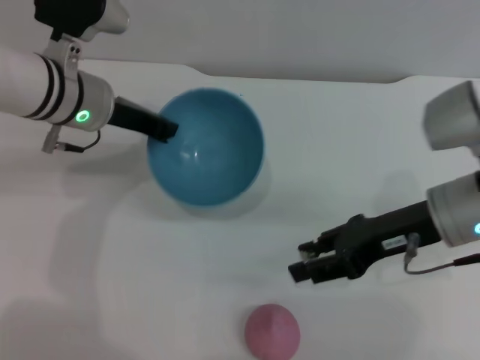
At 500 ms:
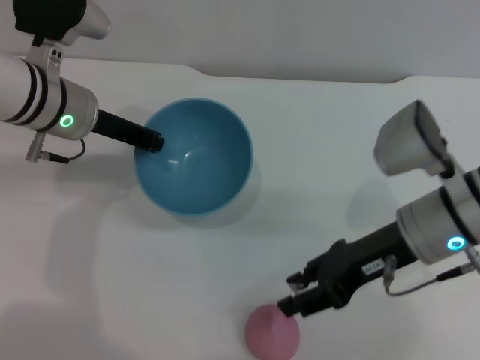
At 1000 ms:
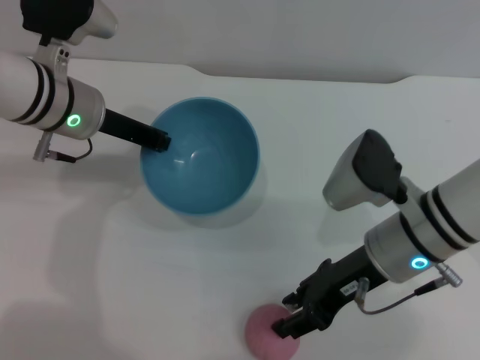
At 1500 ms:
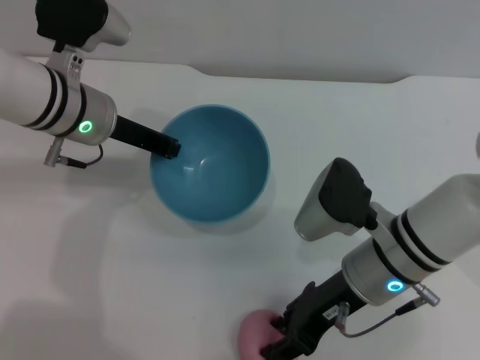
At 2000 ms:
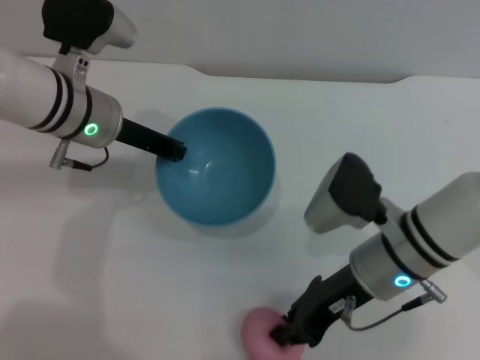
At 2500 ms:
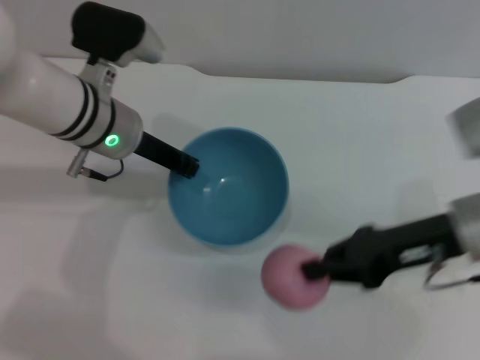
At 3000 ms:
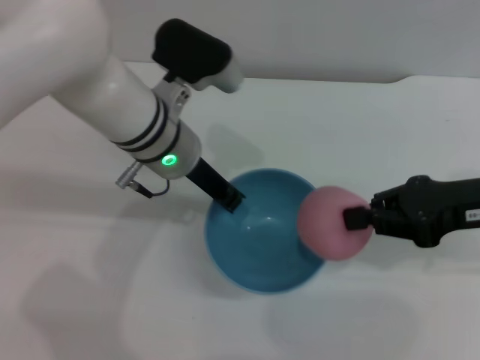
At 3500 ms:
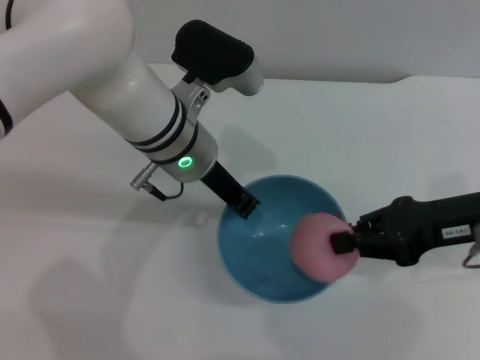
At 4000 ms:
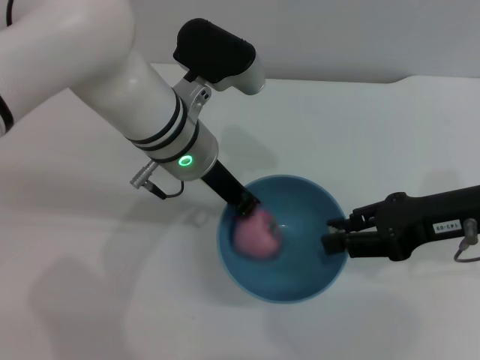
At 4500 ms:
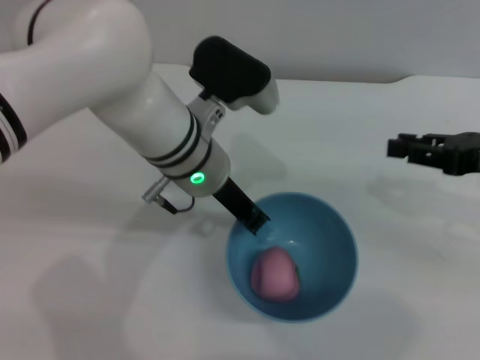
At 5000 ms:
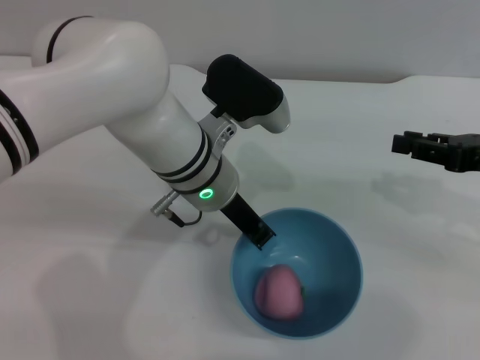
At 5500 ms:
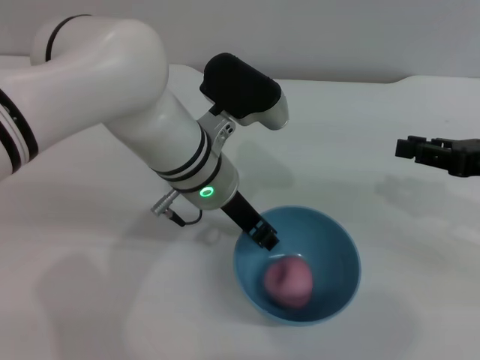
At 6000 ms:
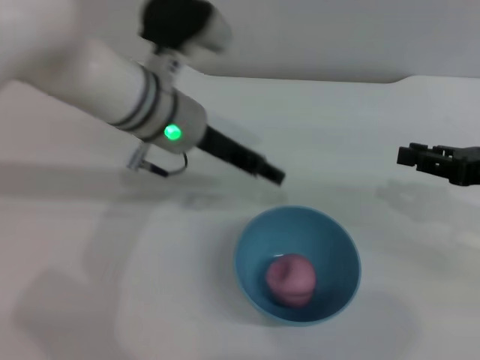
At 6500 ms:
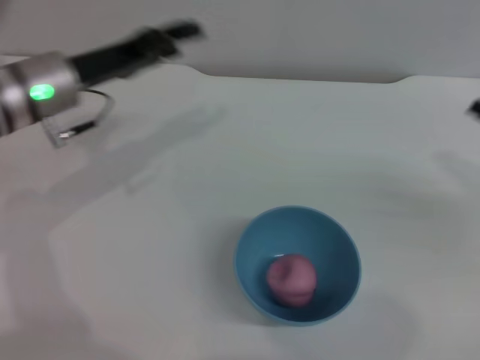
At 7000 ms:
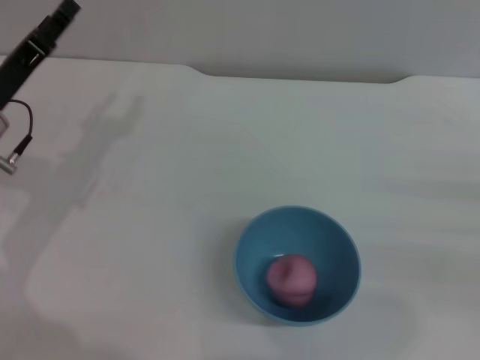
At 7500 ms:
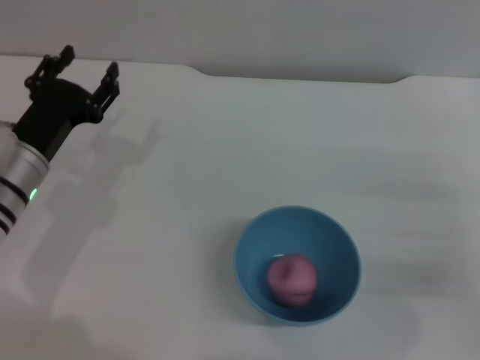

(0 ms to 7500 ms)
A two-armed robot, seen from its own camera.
Task of the whole recording: put the peach into the blue bowl and pour it out repeatedly.
Step, 0 ms - 2500 ms: Pick up the peach with the right gripper.
Step, 3000 ms - 4500 ms: Place the peach into the bowl.
Step, 5000 ms - 6000 ms: Place the bowl on the table.
0 ms - 2000 ms: The right gripper heads to the left, covering about 5 cm.
2000 ms - 4000 ms: The right gripper goes approximately 15 cm to the right and upward, and closes, then opens again. Meanwhile the left gripper travels to the right by roughly 10 cm.
4000 ms - 5500 ms: The right gripper travels to the right by roughly 5 cm.
5500 ms - 7500 ms: The left gripper moves to the left, approximately 20 cm, and opens its fingers, while the right gripper heads downward and backward, covering about 10 cm.

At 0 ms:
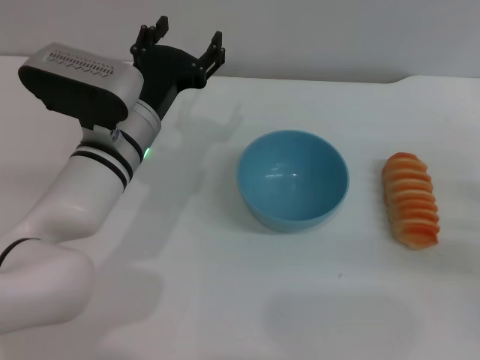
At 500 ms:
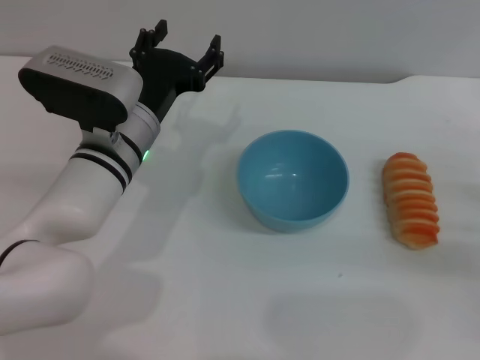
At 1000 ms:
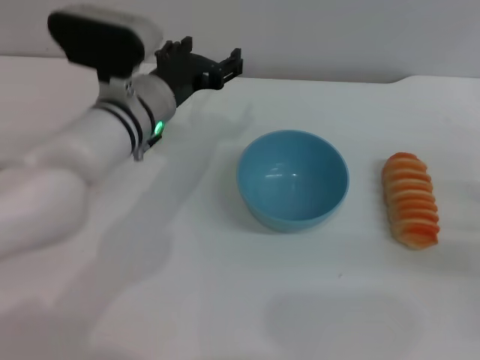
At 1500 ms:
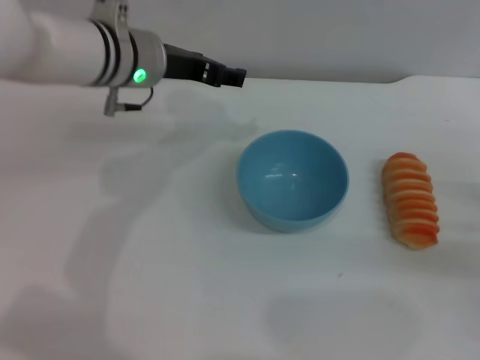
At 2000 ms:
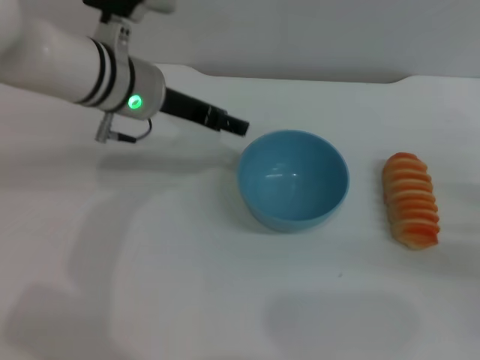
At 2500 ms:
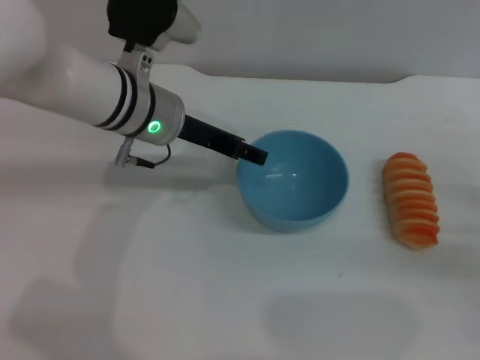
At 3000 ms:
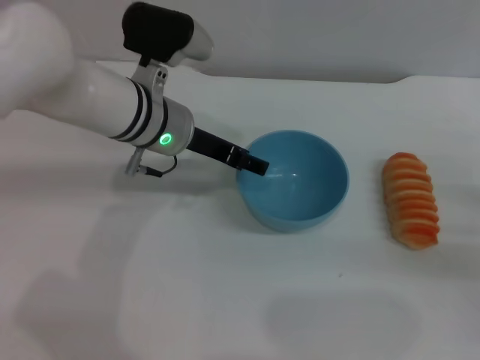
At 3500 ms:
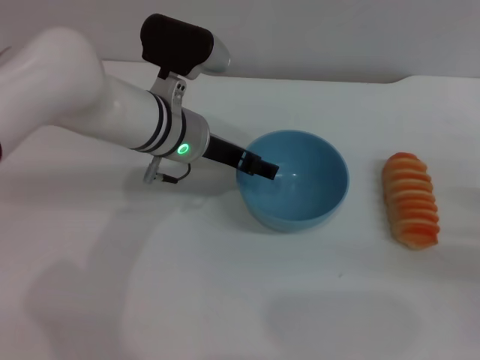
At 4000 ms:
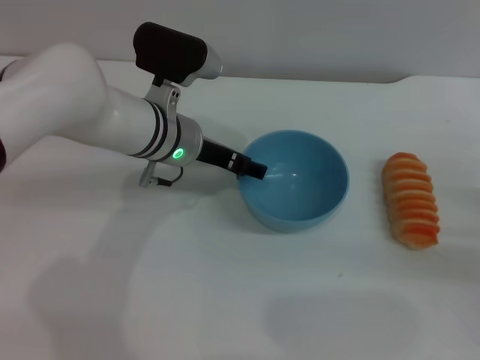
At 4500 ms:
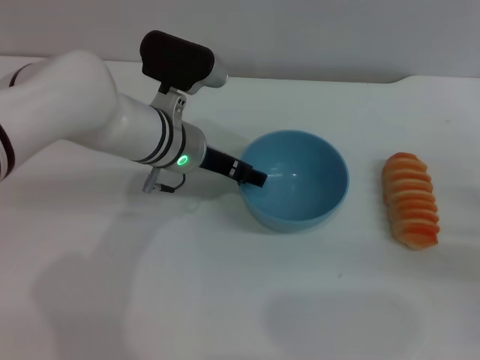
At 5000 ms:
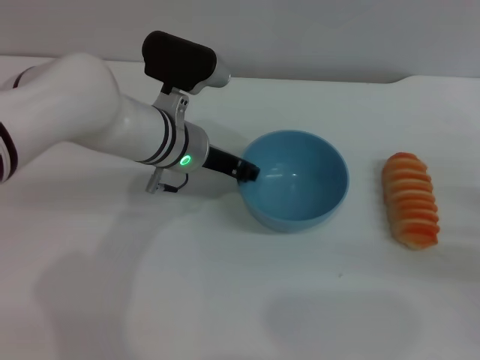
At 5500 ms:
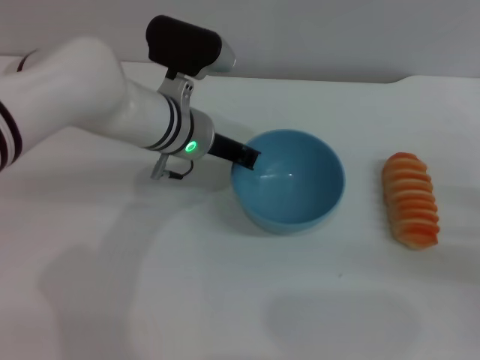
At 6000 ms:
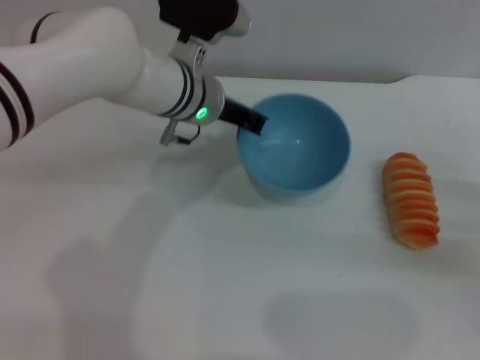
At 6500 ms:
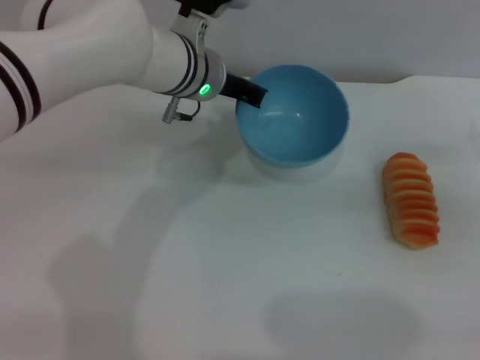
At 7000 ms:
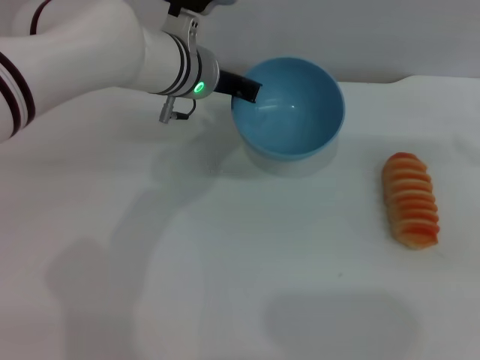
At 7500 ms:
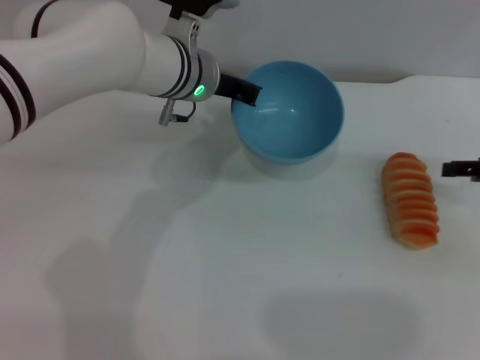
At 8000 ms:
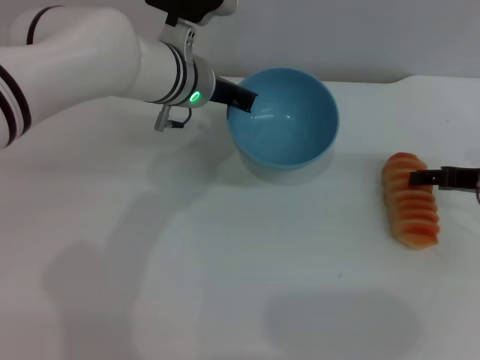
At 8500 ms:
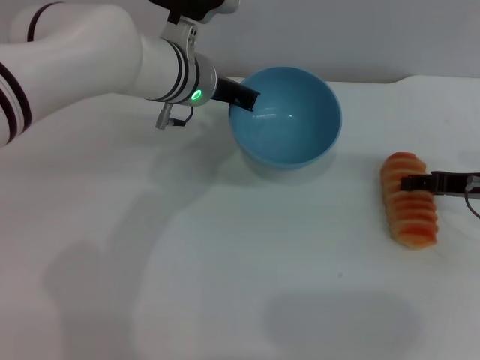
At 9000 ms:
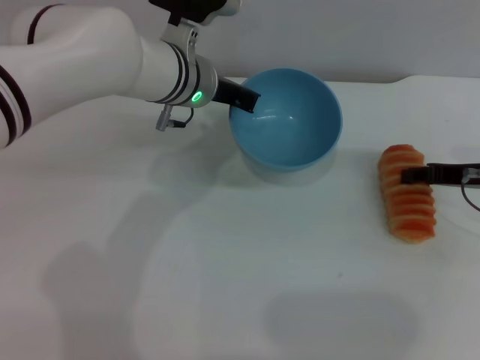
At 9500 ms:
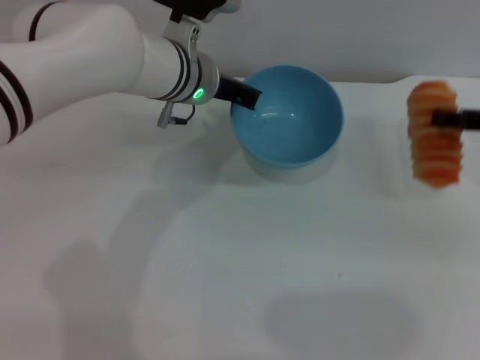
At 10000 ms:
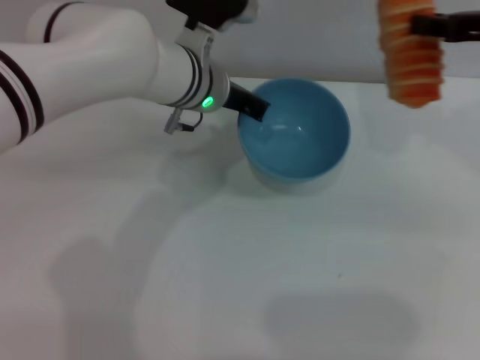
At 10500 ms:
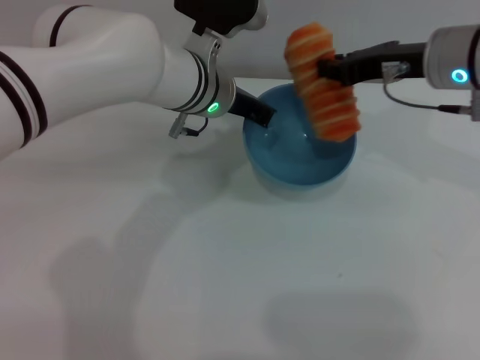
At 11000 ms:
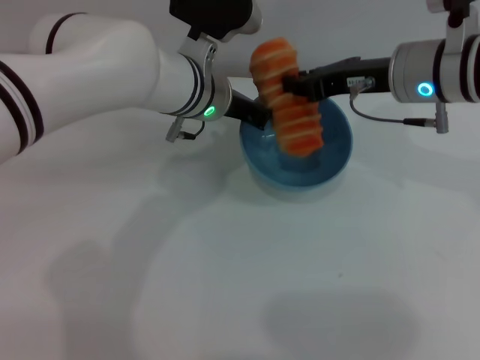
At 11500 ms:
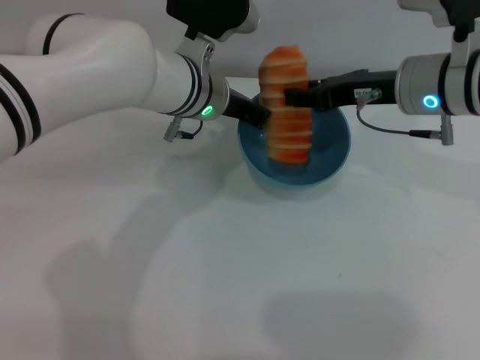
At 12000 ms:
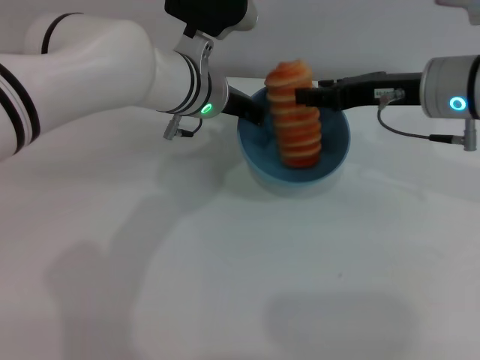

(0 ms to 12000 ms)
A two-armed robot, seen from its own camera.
Task of the whole recording: put the bread into the blue bowl and pour it out repeatedly.
Step, 0 ms - 6500 ms: Pick up the bowl with the left gripper.
Step, 7000 ms - 9000 ms: Pick up the bread with the right gripper.
0 ms - 2000 ms: The left gripper travels upward and forward by roughly 10 cm.
2000 ms - 4000 ms: The left gripper travels downward by roughly 5 cm.
4000 ms - 6000 ms: The left gripper ends up some 5 cm from where it was, and closes its fingers.
6000 ms - 8000 ms: The right gripper is displaced forward by approximately 10 cm.
8000 ms - 10000 ms: The right gripper goes some 15 cm upward, and closes its fingers.
10000 ms - 12000 ms: The right gripper heads to the left and downward, covering about 10 cm, and opens up.

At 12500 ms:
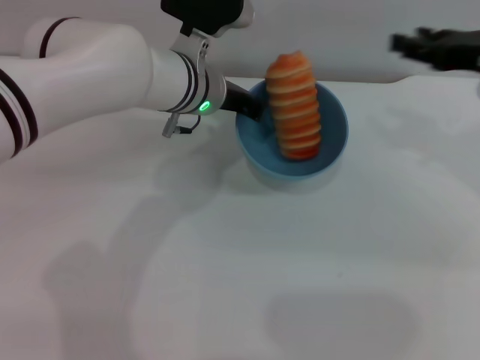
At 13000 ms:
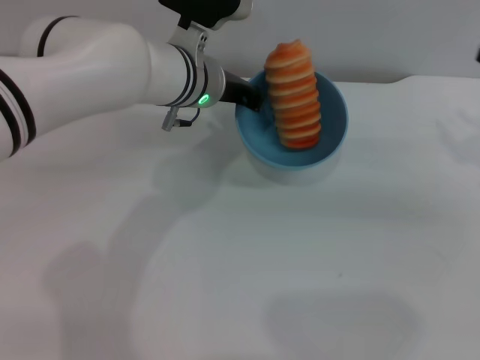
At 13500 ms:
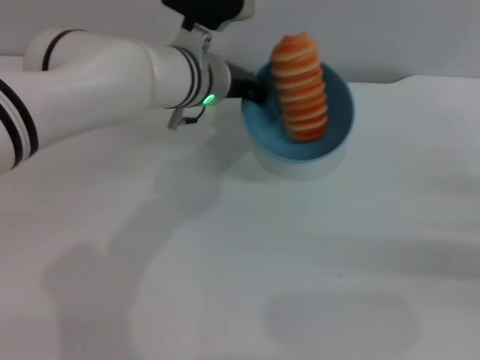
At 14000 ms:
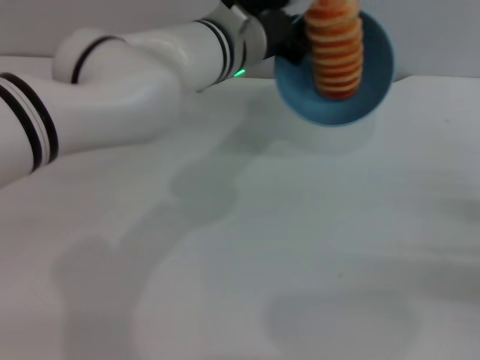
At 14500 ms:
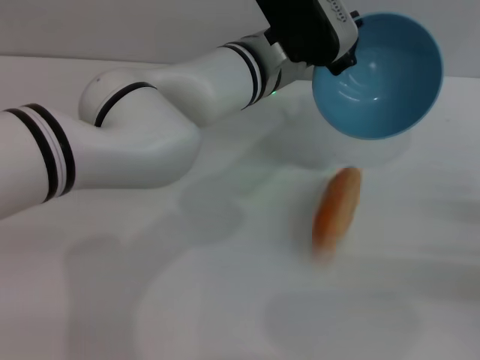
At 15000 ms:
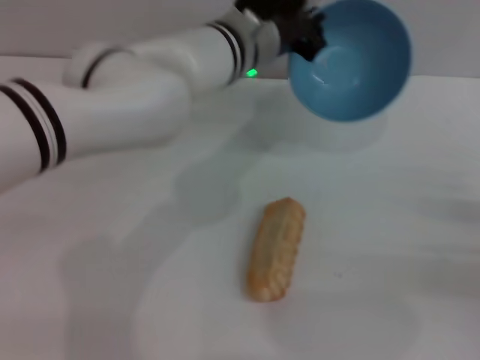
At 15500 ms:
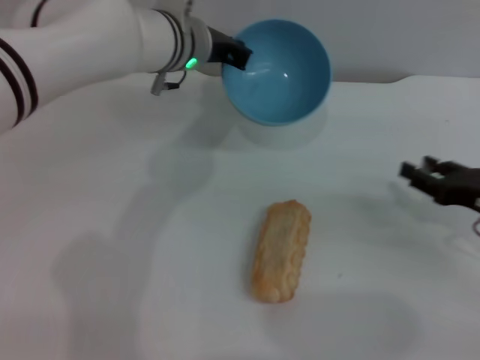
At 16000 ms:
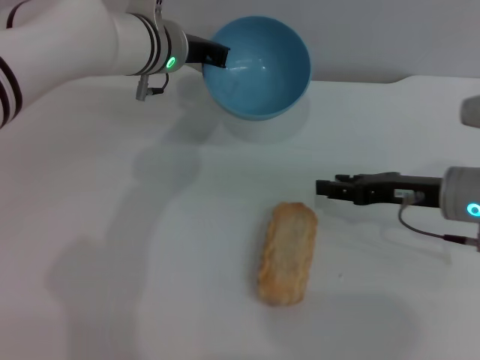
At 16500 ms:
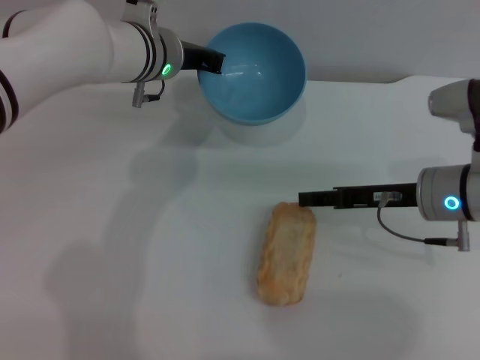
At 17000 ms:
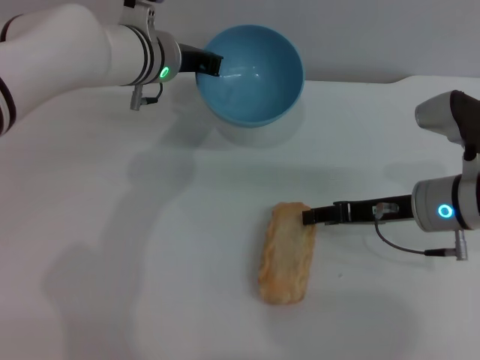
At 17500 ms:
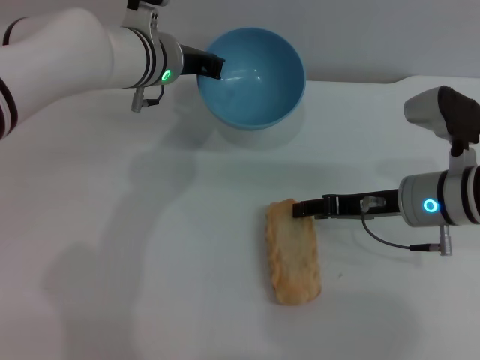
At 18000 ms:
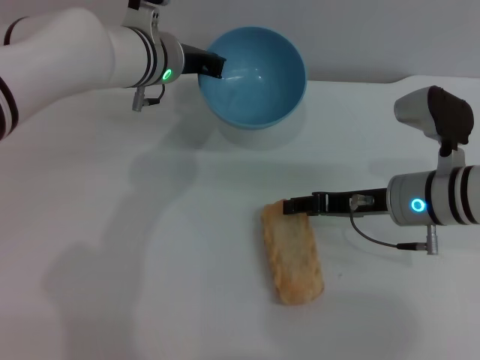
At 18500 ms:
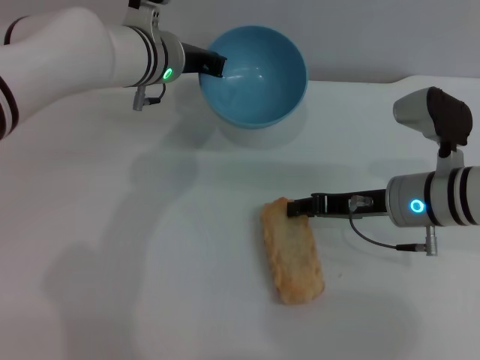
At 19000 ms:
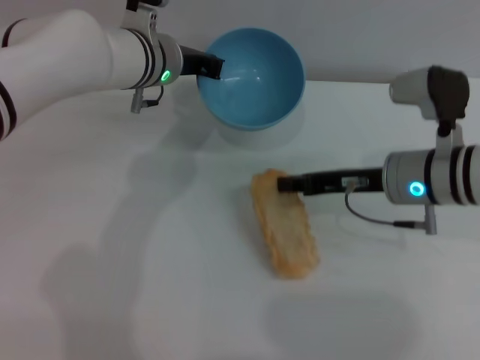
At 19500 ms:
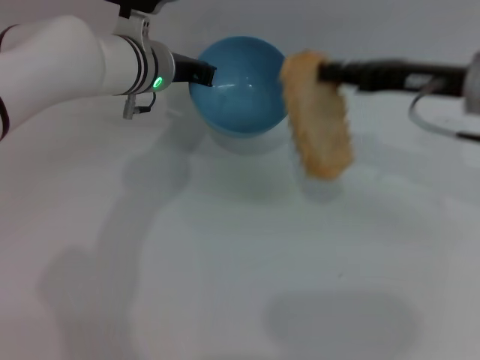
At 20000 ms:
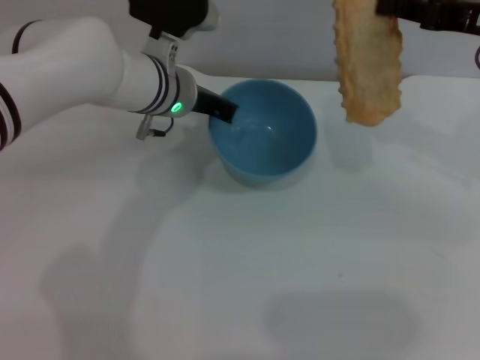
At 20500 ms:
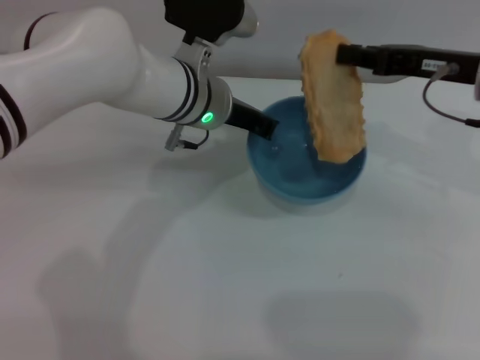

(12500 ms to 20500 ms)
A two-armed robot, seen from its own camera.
Task of the whole recording: put the bread into the blue bowl and pour it out repeatedly.
Step, 12500 ms - 14500 ms: Pour the bread out of the bowl.
Step, 15000 ms - 19000 ms: Pick up the bread with the right gripper.
12500 ms - 14500 ms: The right gripper moves downward, backward and to the right, some 20 cm, while the left gripper is displaced to the right by approximately 5 cm.
14500 ms - 16500 ms: The right gripper goes approximately 20 cm to the left and forward. Meanwhile the left gripper goes some 10 cm to the left.
16500 ms - 18500 ms: The grippers stay close to where they were, moving slightly.
18500 ms - 20500 ms: The left gripper moves approximately 5 cm. Meanwhile the right gripper moves upward and to the right, roughly 15 cm, and closes.
